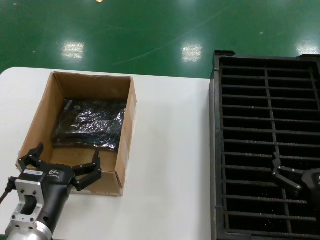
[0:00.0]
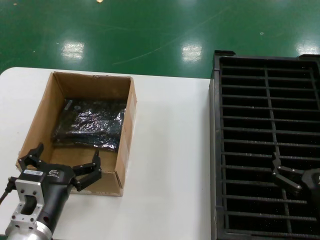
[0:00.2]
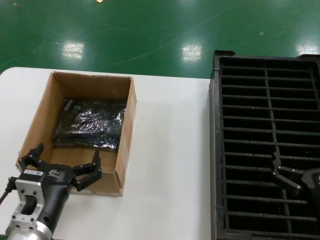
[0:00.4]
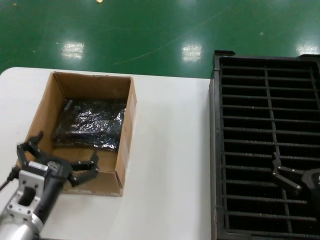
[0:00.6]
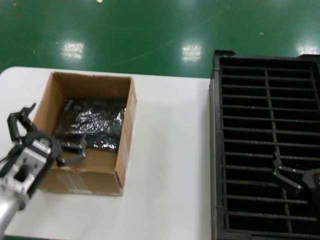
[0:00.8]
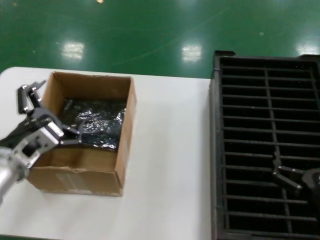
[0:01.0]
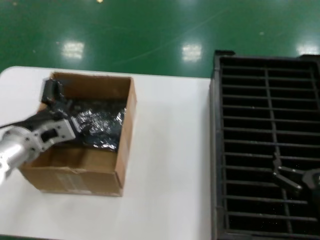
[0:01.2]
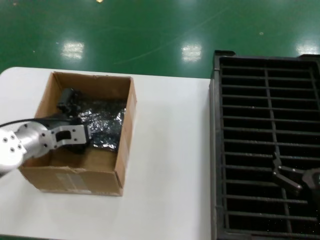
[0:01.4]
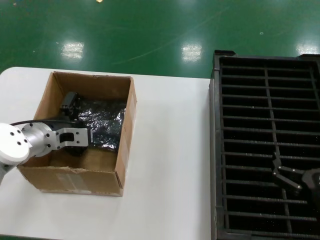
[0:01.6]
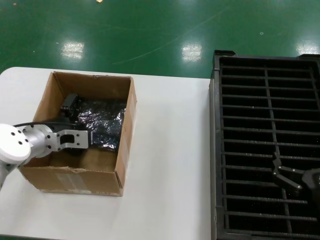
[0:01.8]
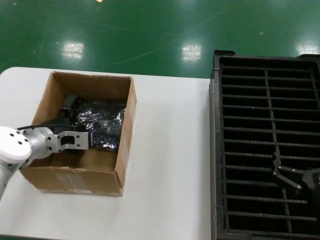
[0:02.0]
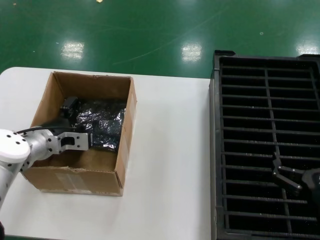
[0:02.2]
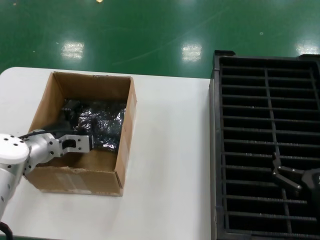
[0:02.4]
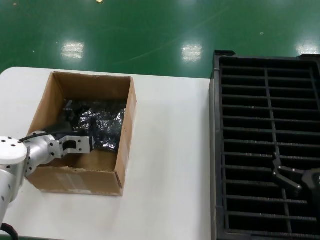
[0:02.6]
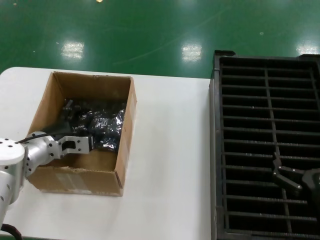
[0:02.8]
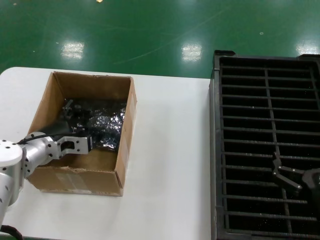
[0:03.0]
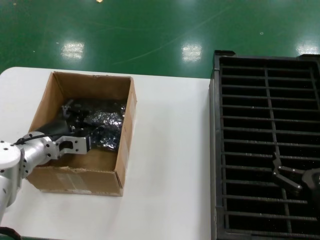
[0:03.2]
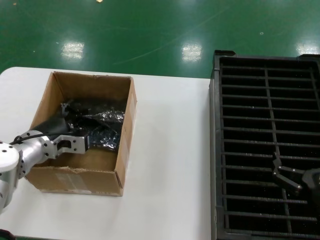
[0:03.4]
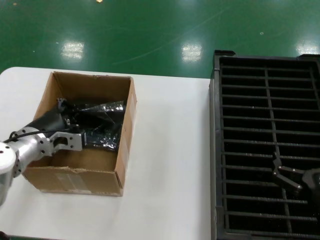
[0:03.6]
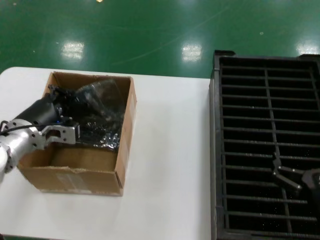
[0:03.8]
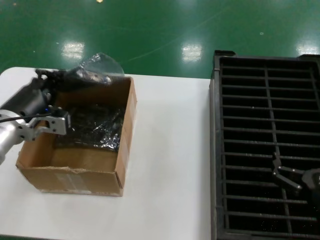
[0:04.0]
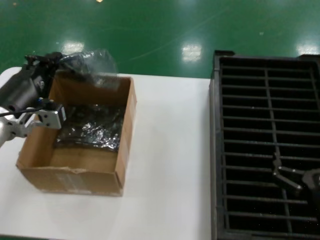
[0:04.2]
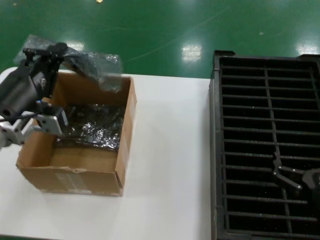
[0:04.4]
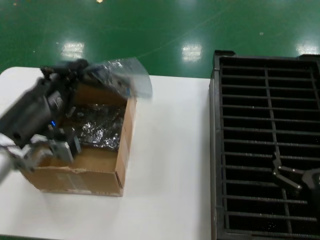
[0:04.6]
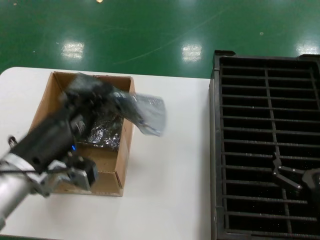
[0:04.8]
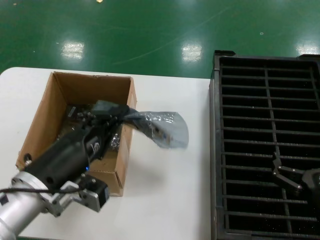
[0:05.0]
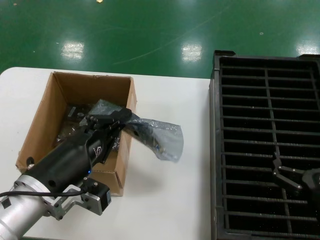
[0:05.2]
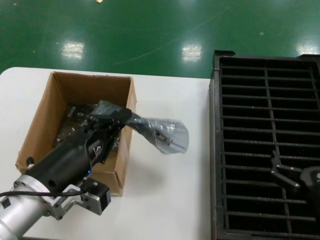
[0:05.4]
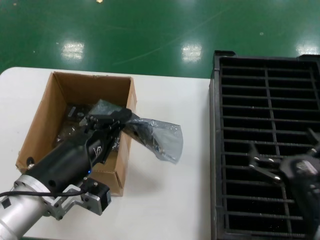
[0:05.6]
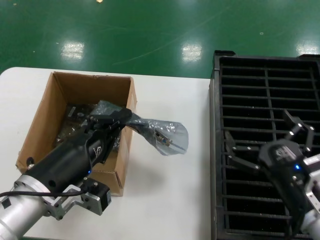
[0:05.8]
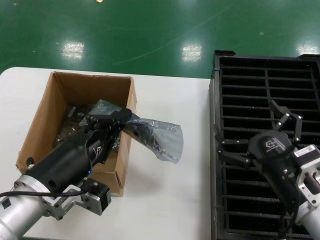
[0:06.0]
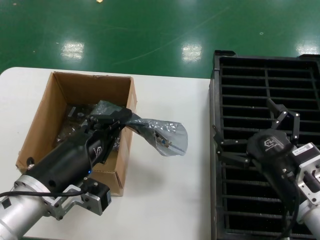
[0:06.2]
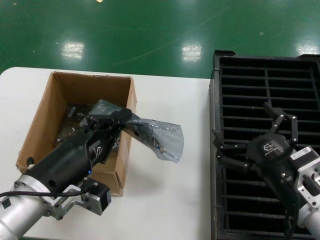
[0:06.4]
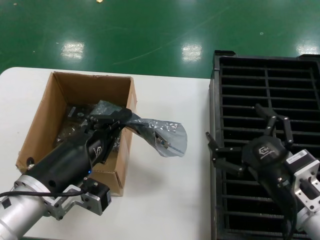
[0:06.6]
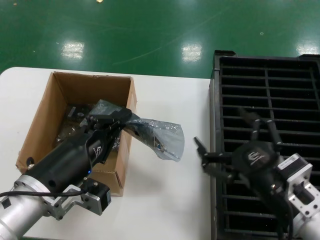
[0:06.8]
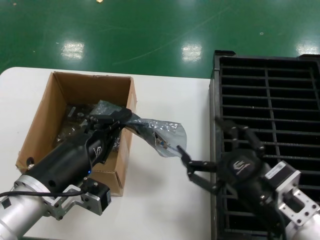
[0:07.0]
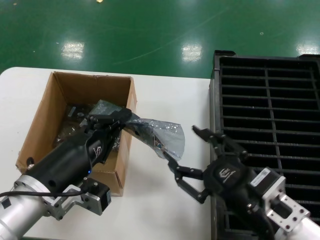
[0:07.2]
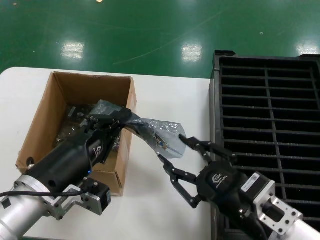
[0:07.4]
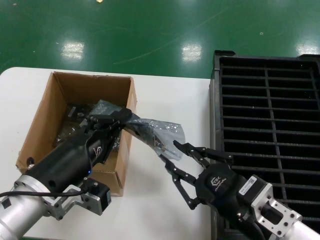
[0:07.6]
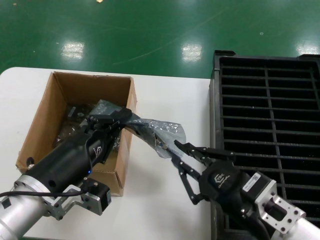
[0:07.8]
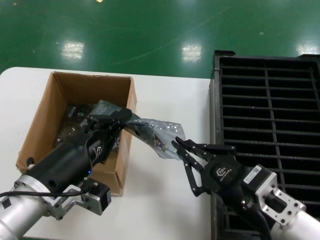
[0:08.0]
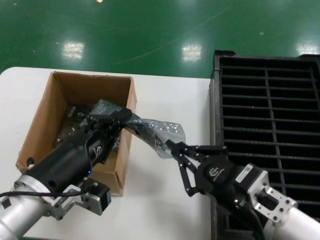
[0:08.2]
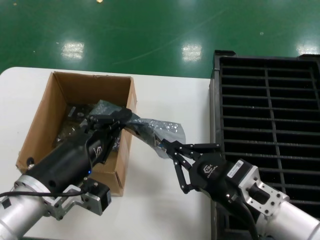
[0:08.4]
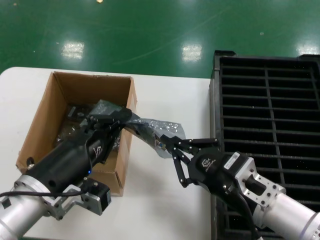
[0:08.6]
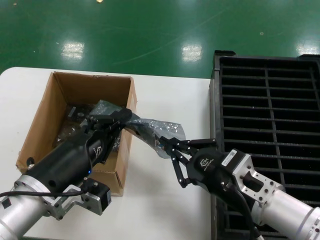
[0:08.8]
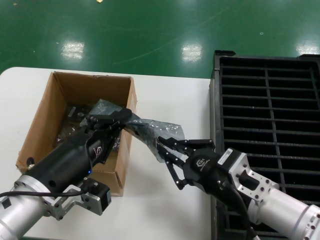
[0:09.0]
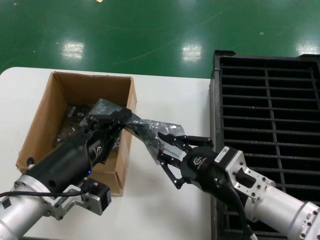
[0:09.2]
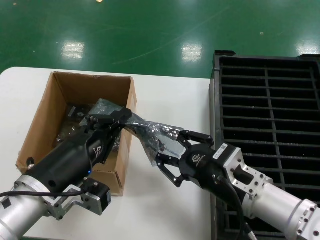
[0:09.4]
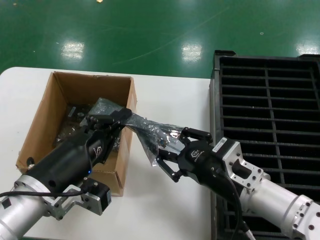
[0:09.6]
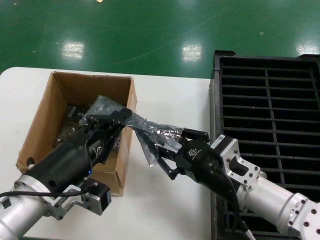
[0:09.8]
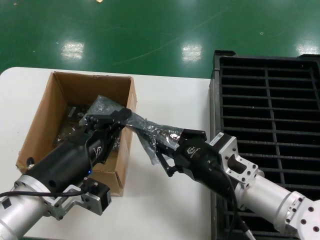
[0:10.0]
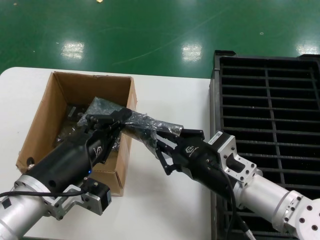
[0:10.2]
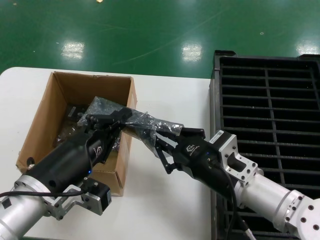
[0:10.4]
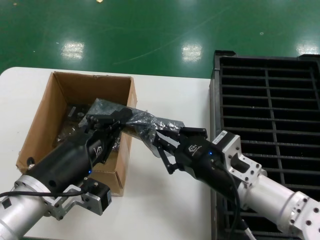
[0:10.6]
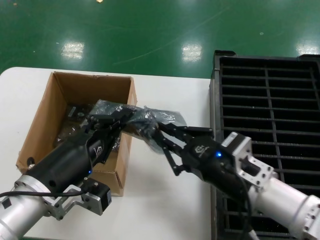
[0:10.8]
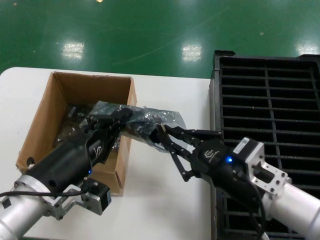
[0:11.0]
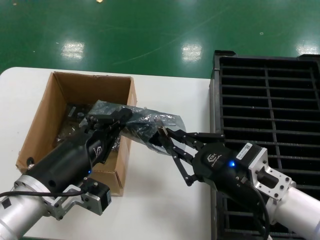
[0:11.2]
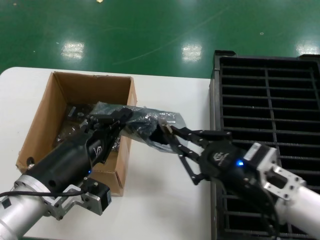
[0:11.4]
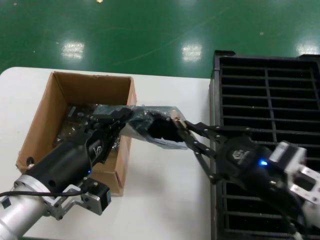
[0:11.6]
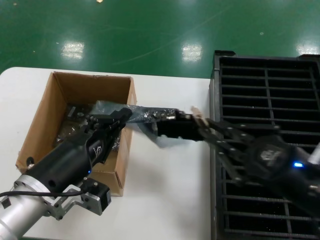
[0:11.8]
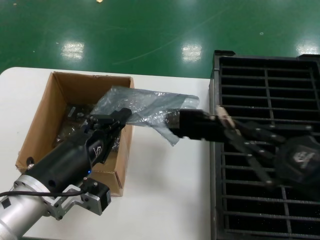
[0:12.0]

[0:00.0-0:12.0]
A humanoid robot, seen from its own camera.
Task of the whole recording: take out graphics card from box remove packaging put into black container.
Step, 0:00.0 to 0:03.4: Grasp the bag.
Step, 0:03.6 to 0:05.0: Lift the bag.
0:00.0 to 0:01.6: The left hand heads forward and upward, covering approximately 20 cm.
0:01.6 to 0:03.0: The hands make only small movements.
0:03.0 to 0:04.4: The left hand shifts roughly 15 cm backward and upward.
0:04.4 to 0:06.0: The left hand travels backward, to the right and downward by about 10 cm. The right hand shifts some 5 cm to the left.
0:07.6 to 0:09.0: The right hand moves forward, roughly 5 cm.
0:09.0 to 0:10.4: There are only small adjustments of the hands.
0:10.4 to 0:12.0: The right hand is displaced to the right, backward and upward by some 20 cm.

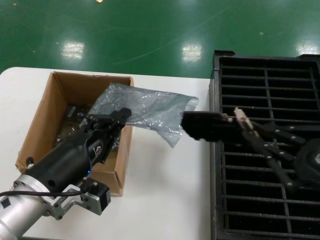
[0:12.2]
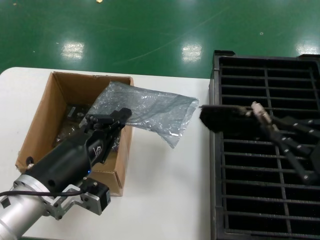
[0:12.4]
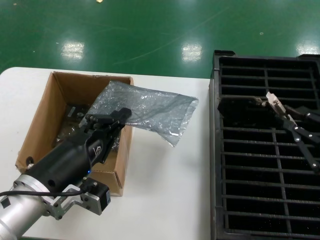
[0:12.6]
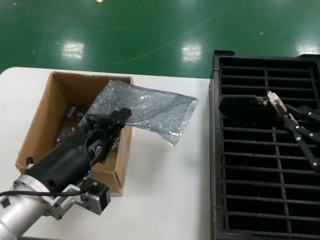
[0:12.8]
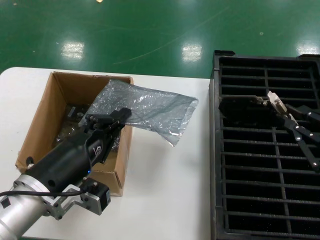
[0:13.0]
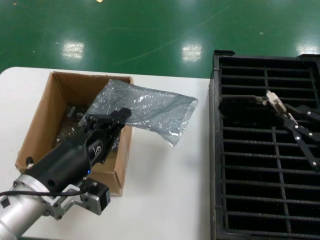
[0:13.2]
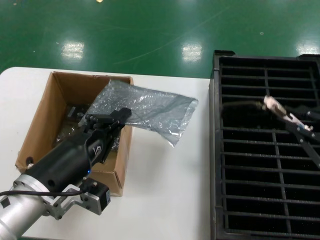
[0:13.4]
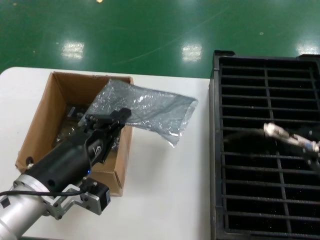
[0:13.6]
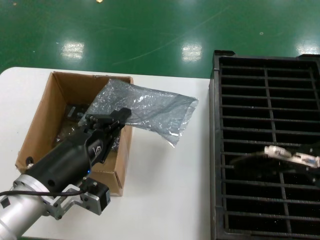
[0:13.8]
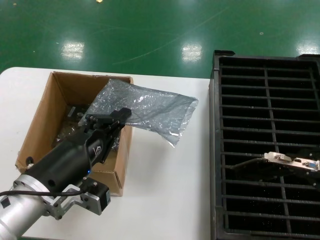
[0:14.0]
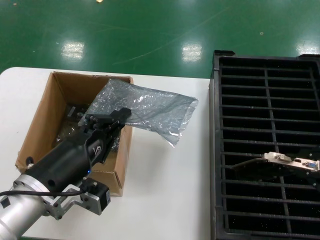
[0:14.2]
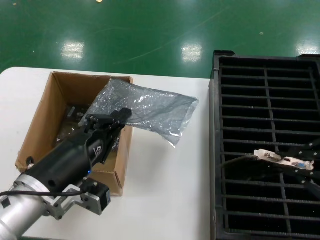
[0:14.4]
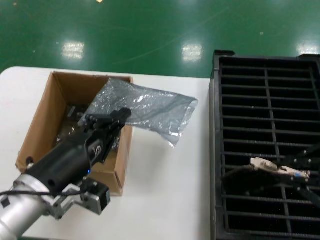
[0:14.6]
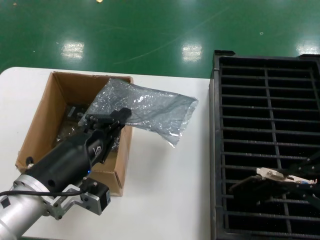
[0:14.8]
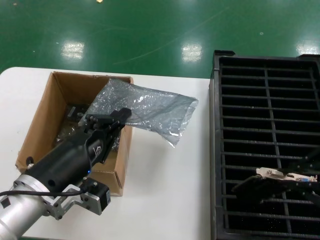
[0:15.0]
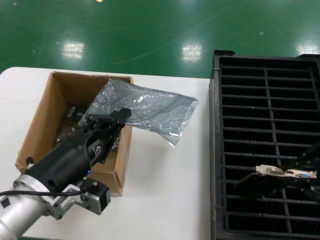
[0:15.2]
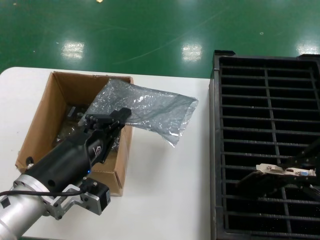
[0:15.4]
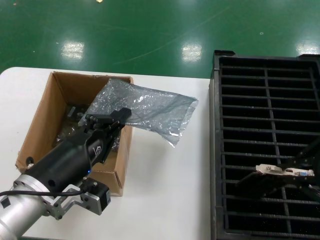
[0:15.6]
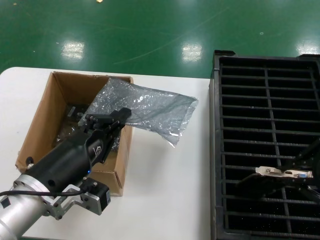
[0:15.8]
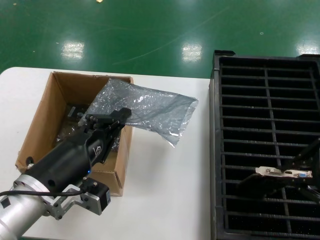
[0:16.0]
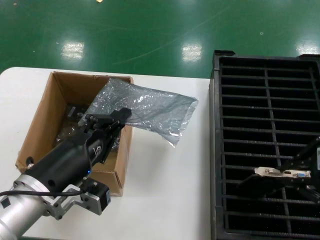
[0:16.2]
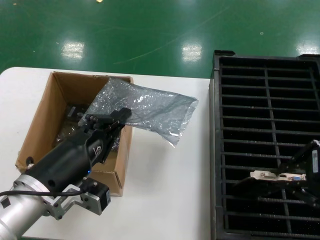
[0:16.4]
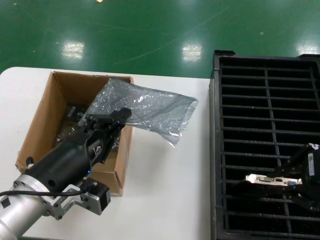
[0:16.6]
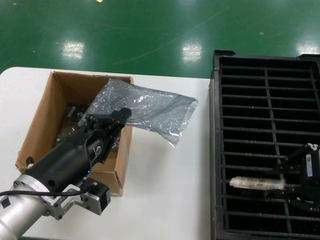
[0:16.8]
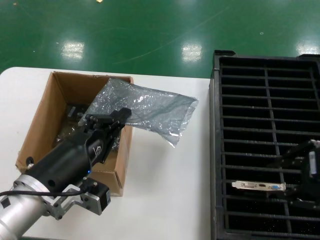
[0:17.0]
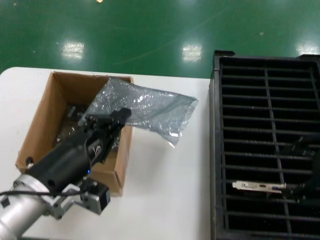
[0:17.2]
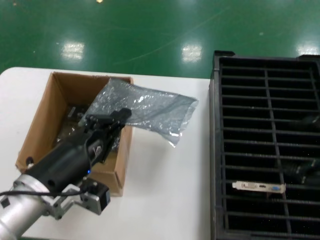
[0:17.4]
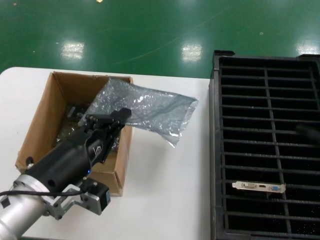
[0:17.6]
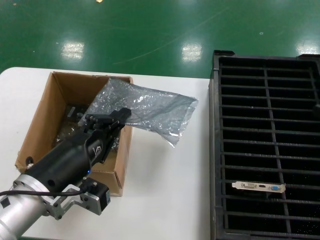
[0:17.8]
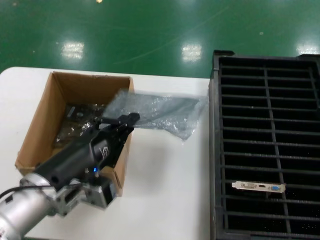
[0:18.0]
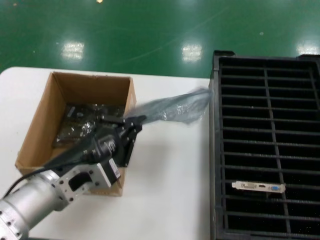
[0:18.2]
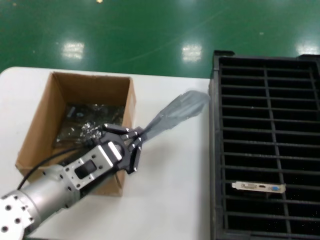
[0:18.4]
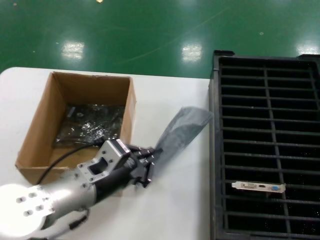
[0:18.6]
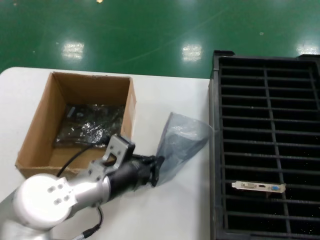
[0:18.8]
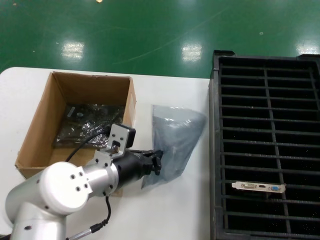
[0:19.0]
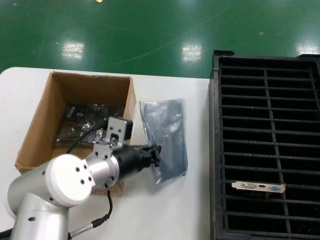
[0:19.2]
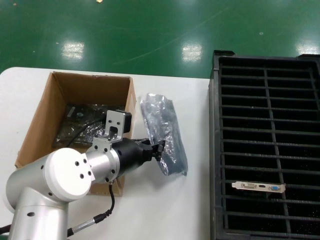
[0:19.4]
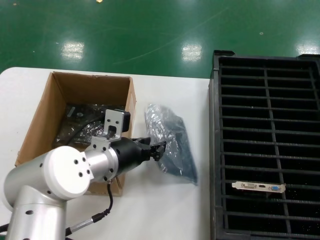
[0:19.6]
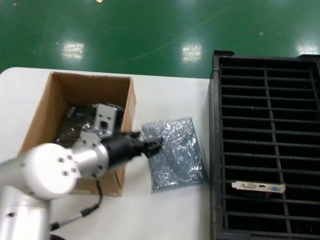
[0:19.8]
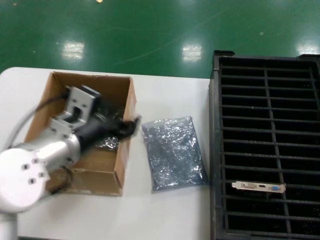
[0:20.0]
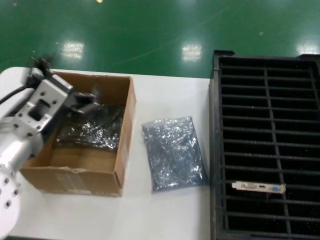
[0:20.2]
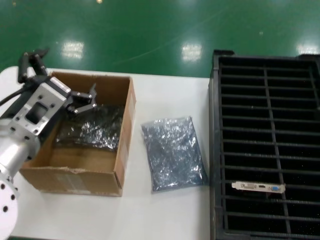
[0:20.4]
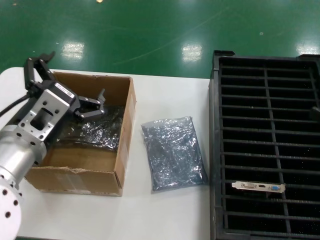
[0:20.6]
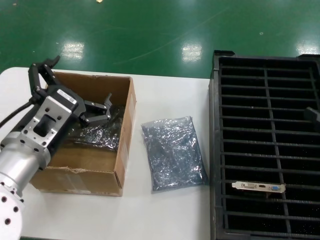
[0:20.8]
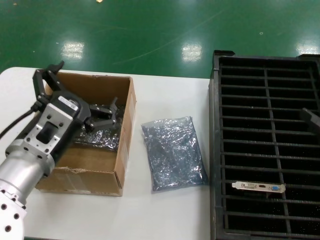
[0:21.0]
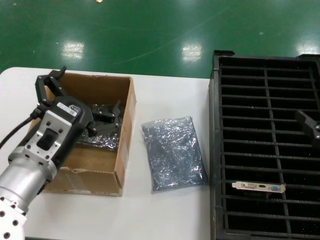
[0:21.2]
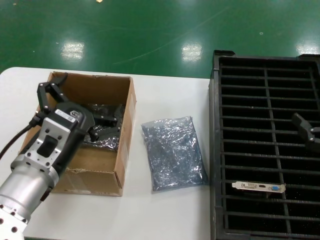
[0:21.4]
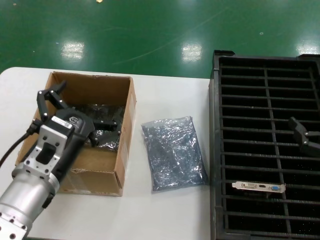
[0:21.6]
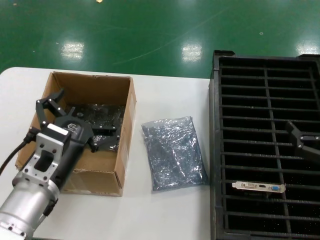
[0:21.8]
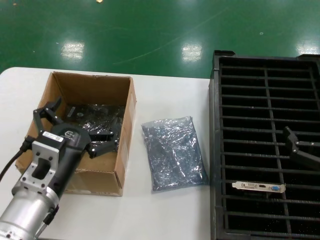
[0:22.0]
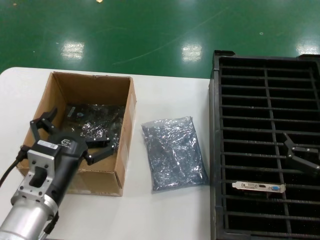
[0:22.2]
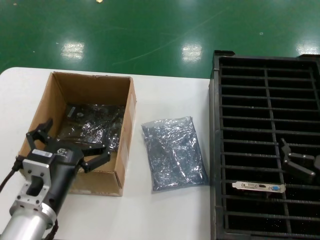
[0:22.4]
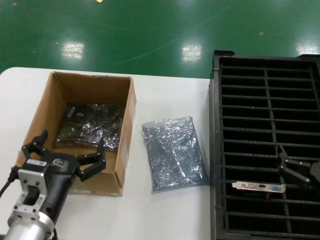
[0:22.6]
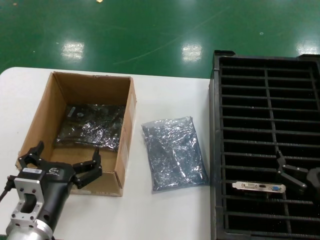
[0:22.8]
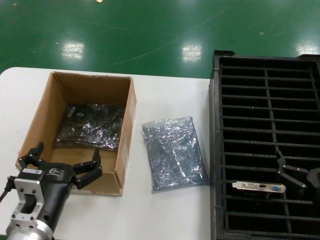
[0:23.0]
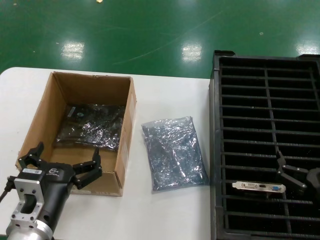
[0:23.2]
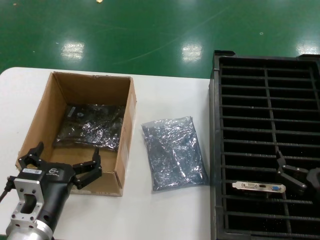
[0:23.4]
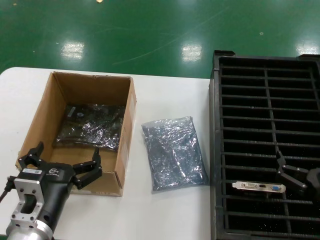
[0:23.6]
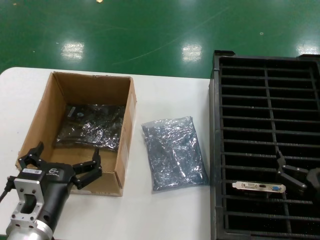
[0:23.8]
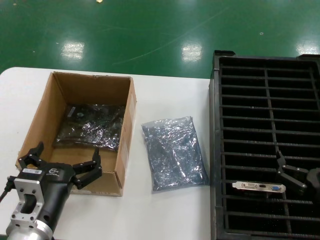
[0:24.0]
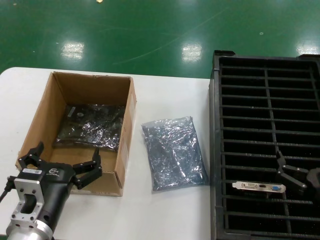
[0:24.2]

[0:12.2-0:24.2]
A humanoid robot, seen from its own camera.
Task of the whole recording: take out graphics card from box remove packaging put into black container.
Step, 0:12.6 to 0:17.2: Place the hard disk in the hard disk enclosure.
Step, 0:17.4 to 0:22.6: Place the down the bag.
0:12.2 to 0:13.8: The right hand moves upward, roughly 10 cm.
0:13.8 to 0:15.2: The right hand shifts by about 5 cm.
0:15.2 to 0:16.6: The hands stay close to where they were, moving slightly.
0:16.6 to 0:18.2: The right hand goes some 15 cm to the right.
0:18.2 to 0:19.8: The left hand is displaced forward by approximately 10 cm.
0:19.8 to 0:21.2: The right hand shifts roughly 10 cm downward; the left hand shifts approximately 10 cm backward.
0:21.2 to 0:22.6: The right hand goes about 15 cm downward and to the left; the left hand travels downward by some 10 cm.
0:22.6 to 0:24.2: The hands move only a little.
